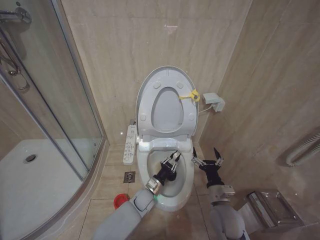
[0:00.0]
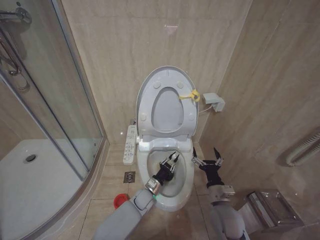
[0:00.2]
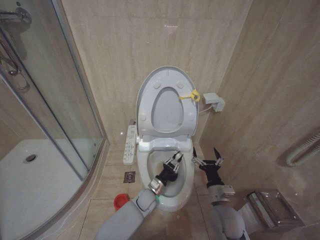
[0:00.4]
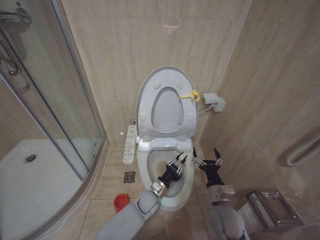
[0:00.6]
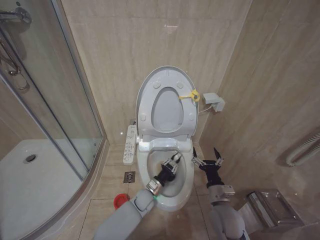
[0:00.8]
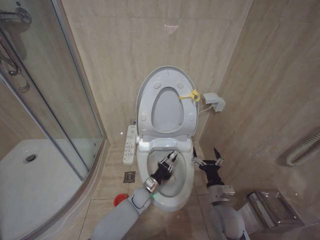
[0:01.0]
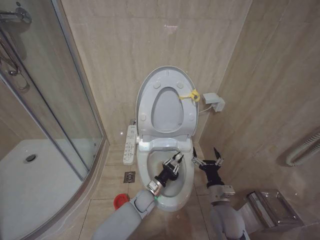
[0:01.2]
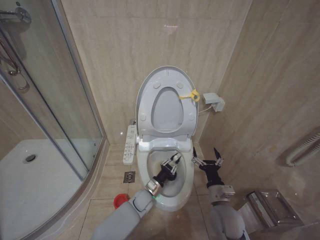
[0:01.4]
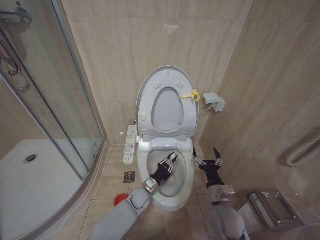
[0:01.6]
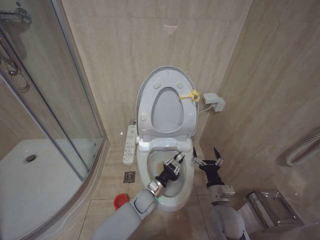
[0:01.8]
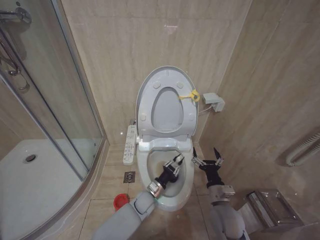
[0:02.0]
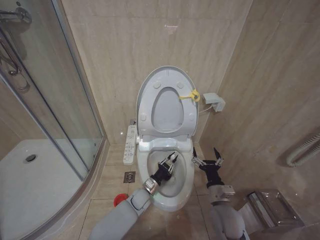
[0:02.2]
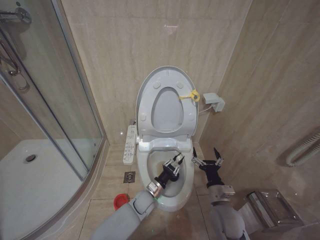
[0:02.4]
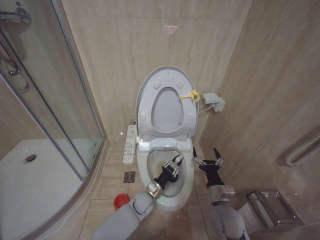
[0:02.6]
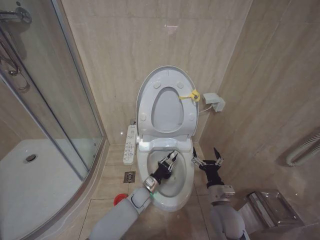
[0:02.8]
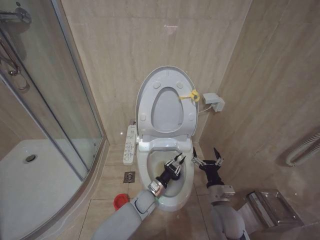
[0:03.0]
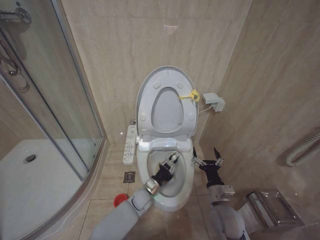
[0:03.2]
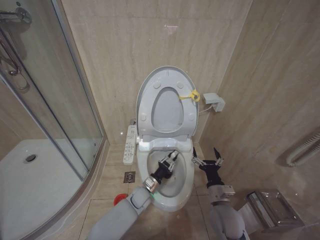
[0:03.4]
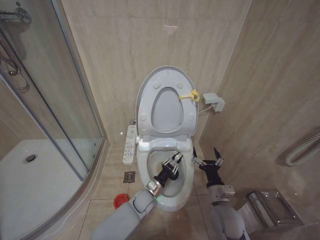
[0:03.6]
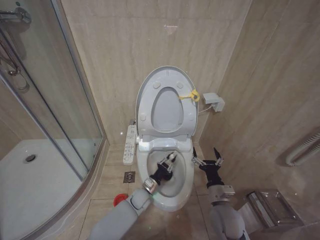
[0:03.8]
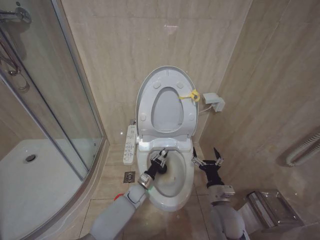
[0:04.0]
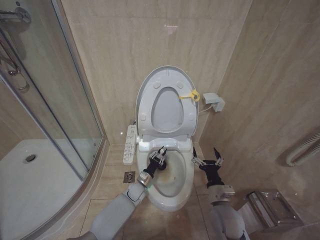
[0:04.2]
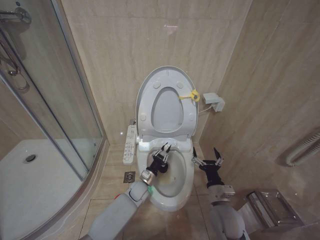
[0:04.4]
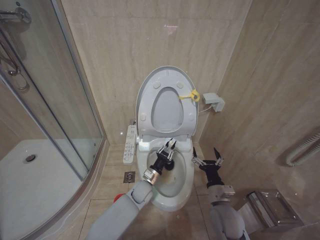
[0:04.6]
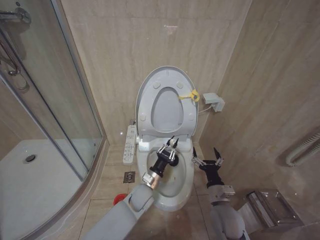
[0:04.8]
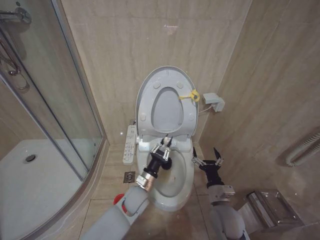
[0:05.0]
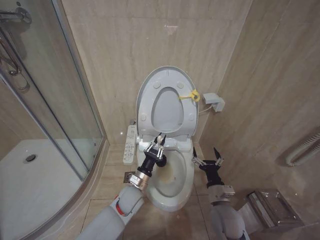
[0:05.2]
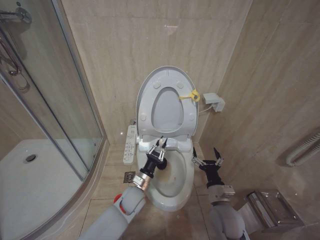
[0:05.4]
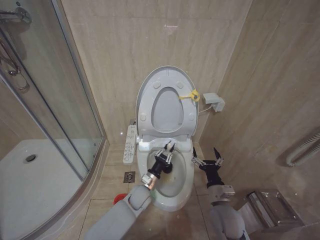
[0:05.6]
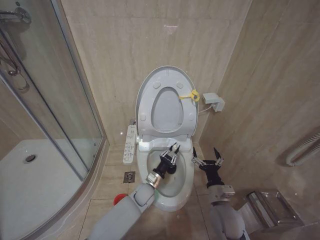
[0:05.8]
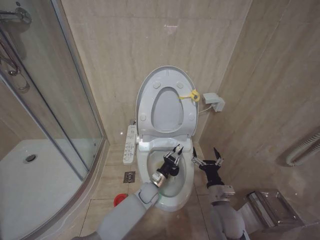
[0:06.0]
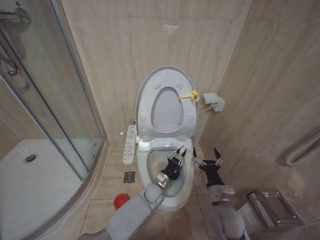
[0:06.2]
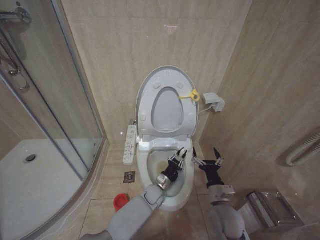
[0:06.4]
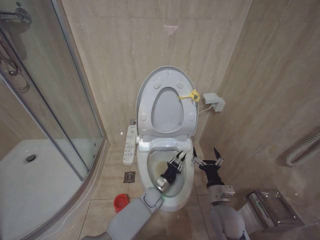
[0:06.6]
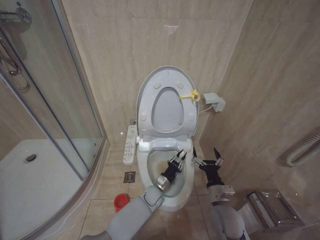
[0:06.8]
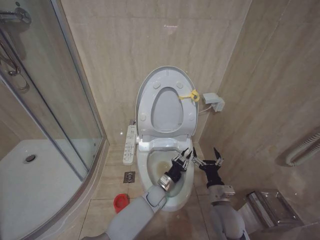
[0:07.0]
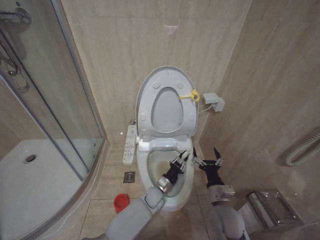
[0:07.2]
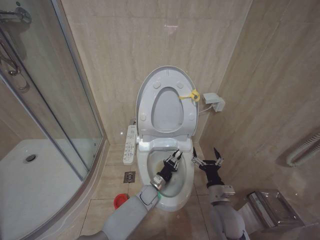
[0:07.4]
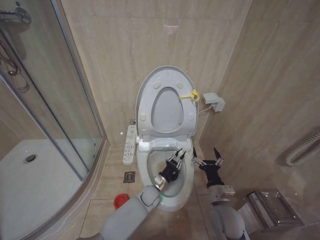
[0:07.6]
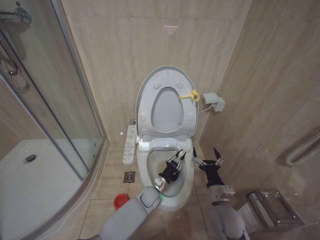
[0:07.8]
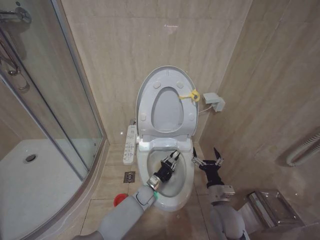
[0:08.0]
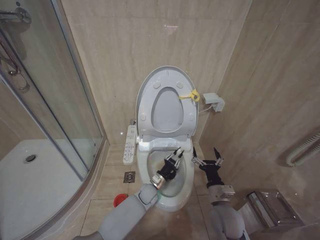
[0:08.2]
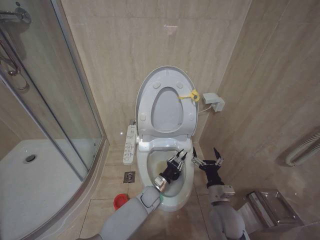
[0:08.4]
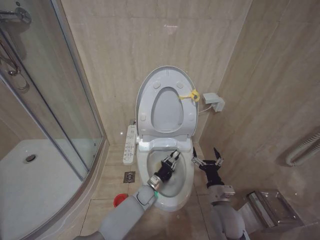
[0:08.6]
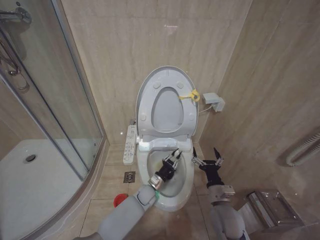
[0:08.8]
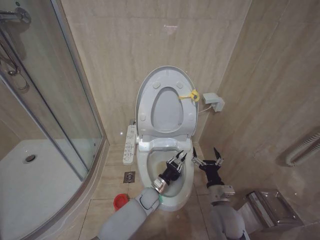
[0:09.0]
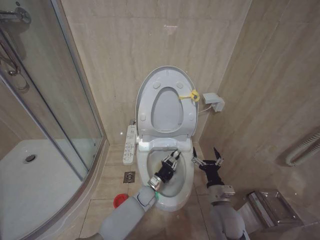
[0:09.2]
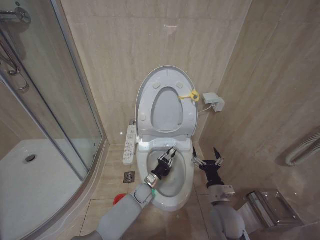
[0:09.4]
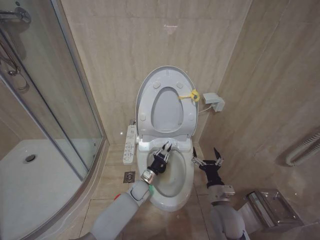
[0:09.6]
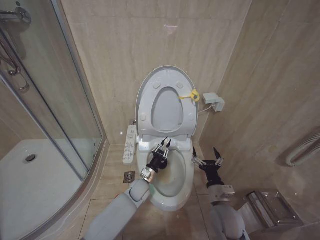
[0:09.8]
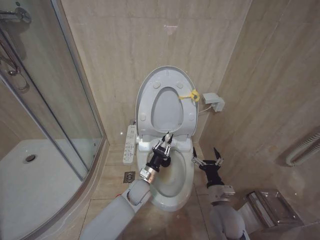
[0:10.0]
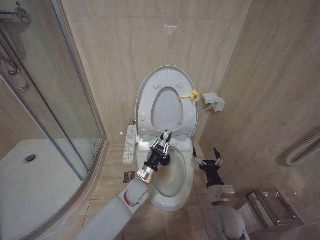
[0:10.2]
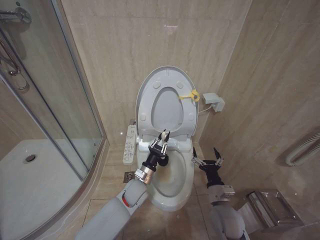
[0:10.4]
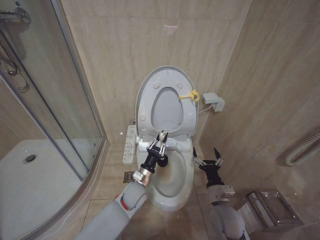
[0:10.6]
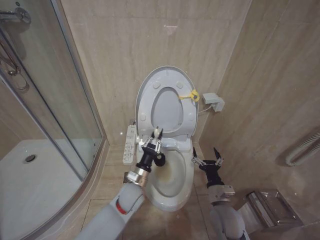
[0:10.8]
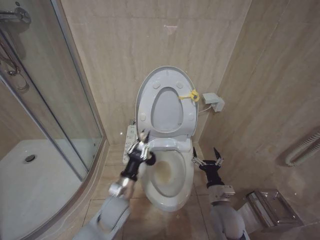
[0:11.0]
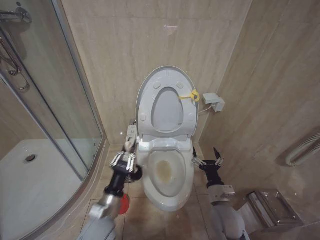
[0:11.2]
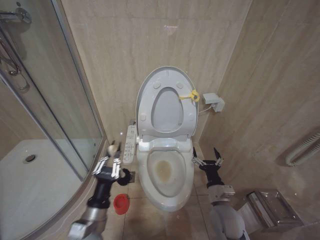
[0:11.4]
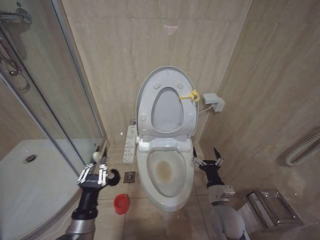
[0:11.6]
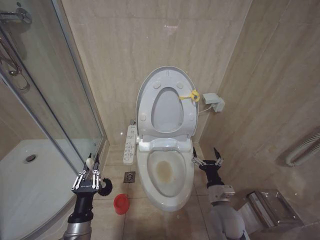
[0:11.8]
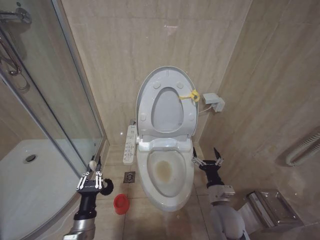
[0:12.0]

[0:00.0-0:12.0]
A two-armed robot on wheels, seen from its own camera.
Task of the whole recording: Open the toilet lid, clean the toilet bowl with a toilet brush, close the toilet lid, and flush.
0:00.0 to 0:03.0: The grippers move only a little.
0:04.4 to 0:06.0: The left gripper reaches about 10 cm upward, then returns.
0:06.0 to 0:07.6: The grippers move only a little.
0:09.0 to 0:10.4: The left gripper shifts about 10 cm upward and to the left.
0:10.4 to 0:12.0: The left gripper travels backward and to the left by some 25 cm.

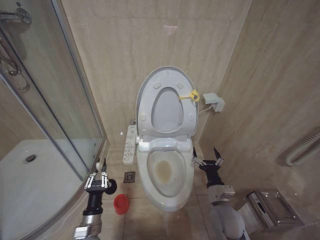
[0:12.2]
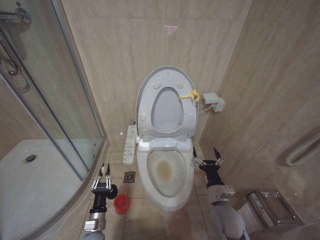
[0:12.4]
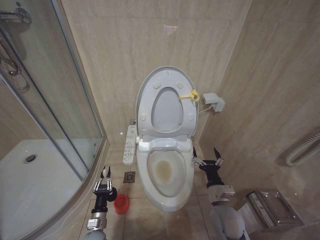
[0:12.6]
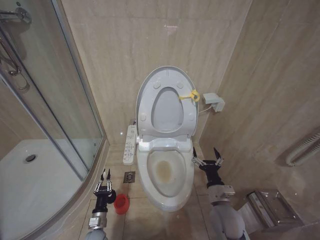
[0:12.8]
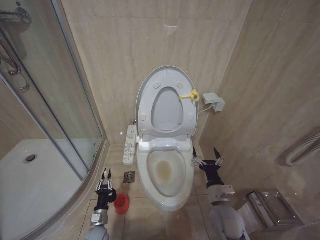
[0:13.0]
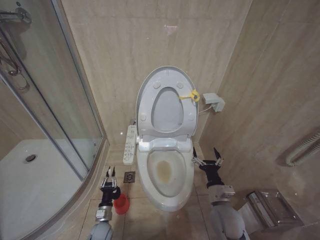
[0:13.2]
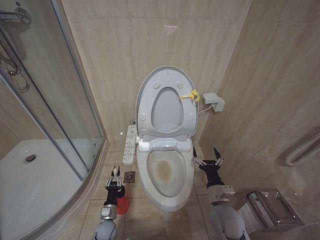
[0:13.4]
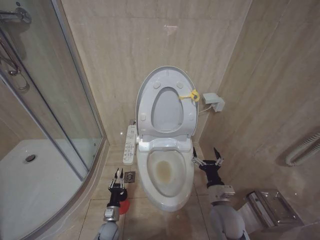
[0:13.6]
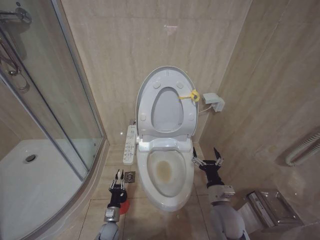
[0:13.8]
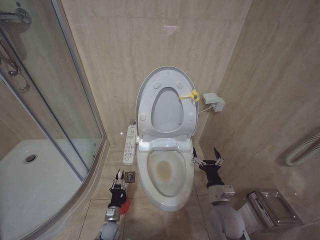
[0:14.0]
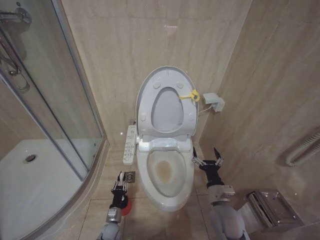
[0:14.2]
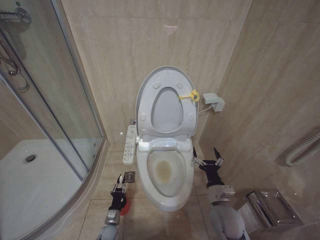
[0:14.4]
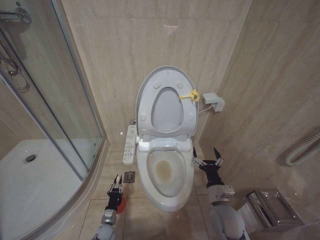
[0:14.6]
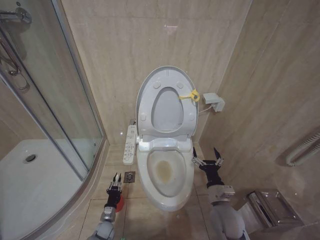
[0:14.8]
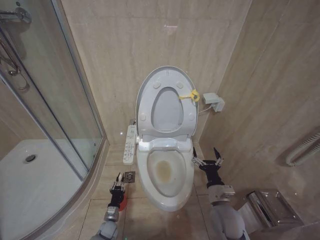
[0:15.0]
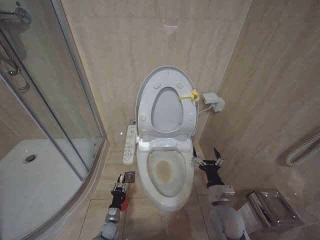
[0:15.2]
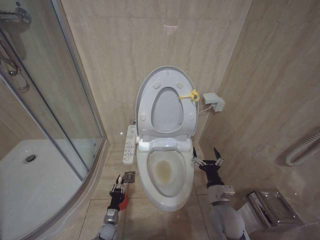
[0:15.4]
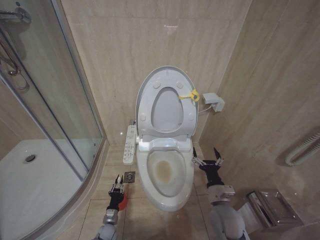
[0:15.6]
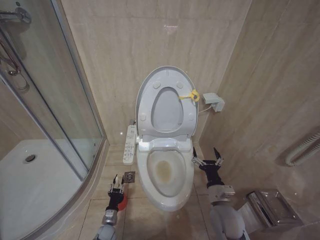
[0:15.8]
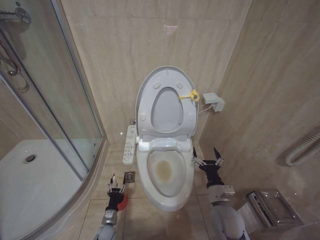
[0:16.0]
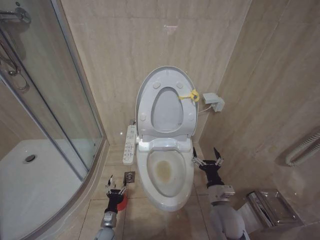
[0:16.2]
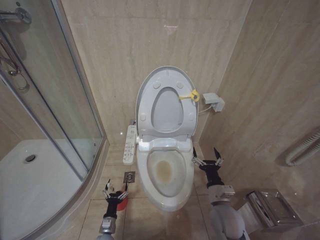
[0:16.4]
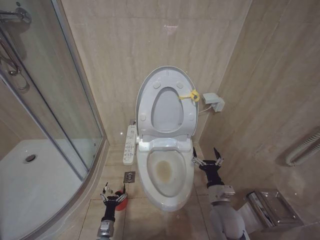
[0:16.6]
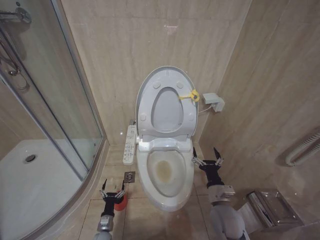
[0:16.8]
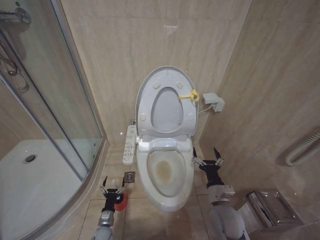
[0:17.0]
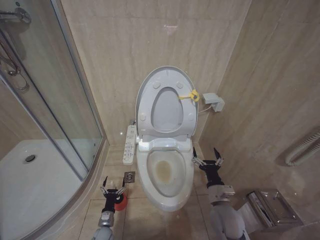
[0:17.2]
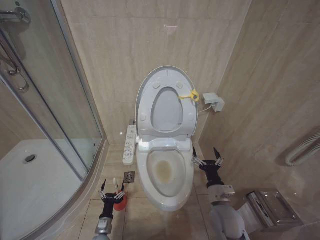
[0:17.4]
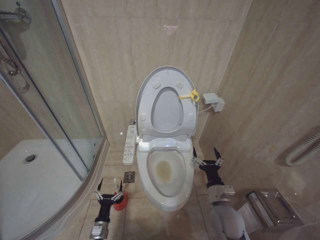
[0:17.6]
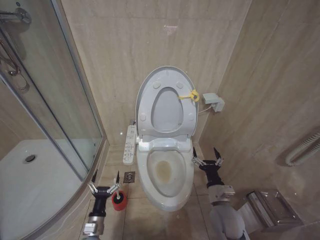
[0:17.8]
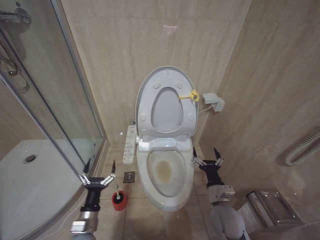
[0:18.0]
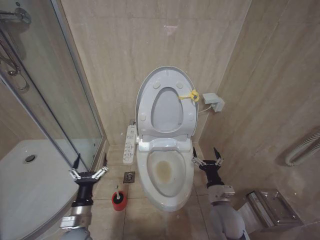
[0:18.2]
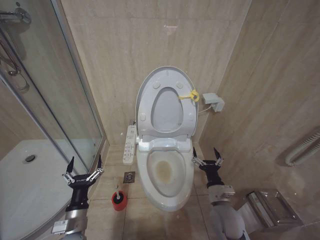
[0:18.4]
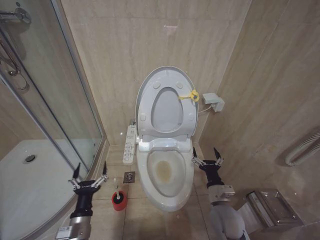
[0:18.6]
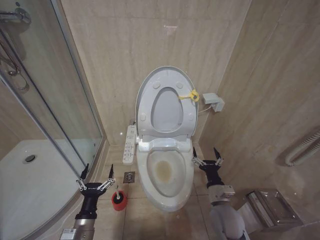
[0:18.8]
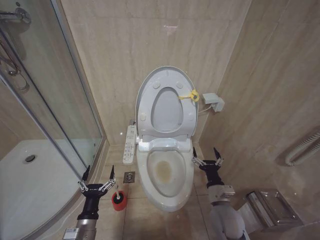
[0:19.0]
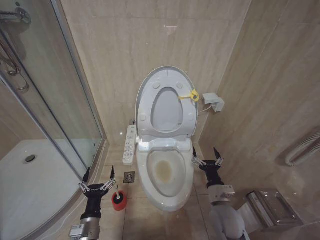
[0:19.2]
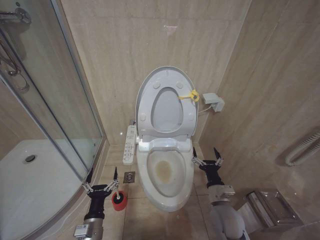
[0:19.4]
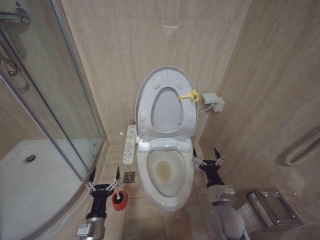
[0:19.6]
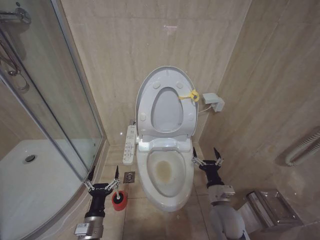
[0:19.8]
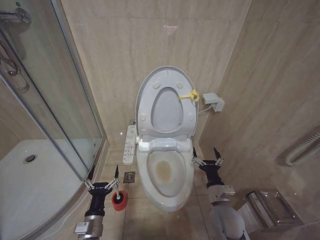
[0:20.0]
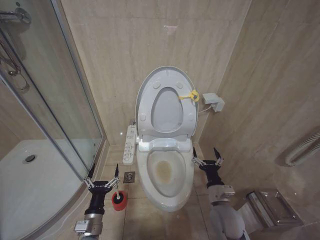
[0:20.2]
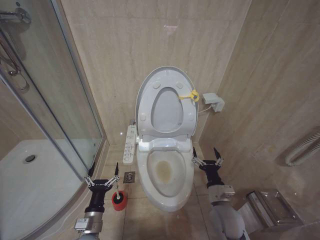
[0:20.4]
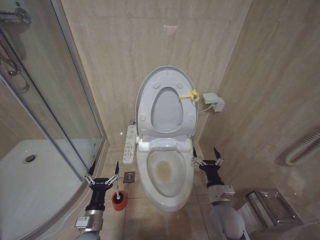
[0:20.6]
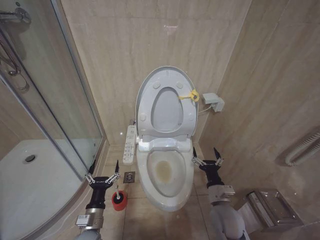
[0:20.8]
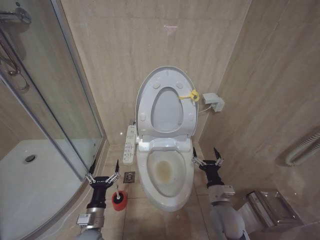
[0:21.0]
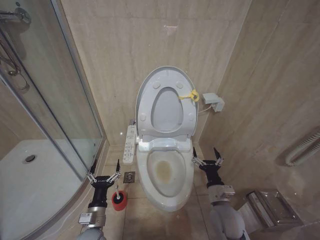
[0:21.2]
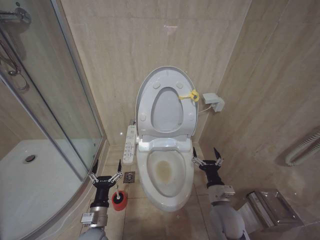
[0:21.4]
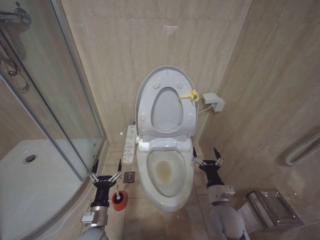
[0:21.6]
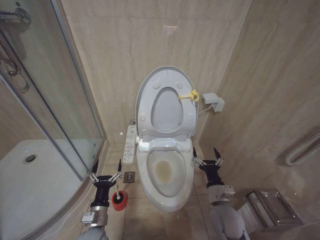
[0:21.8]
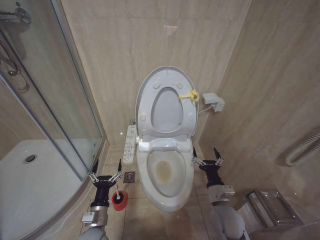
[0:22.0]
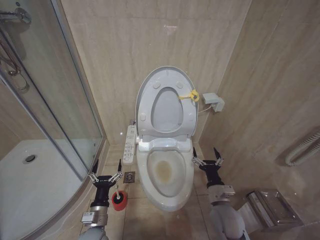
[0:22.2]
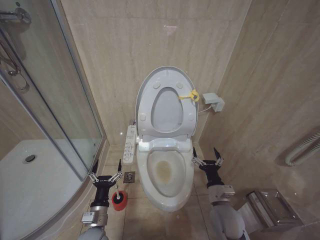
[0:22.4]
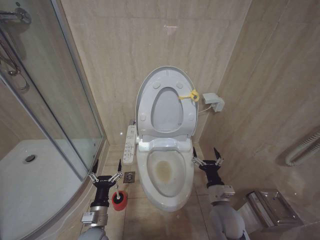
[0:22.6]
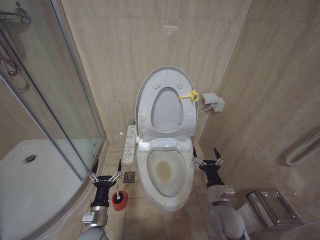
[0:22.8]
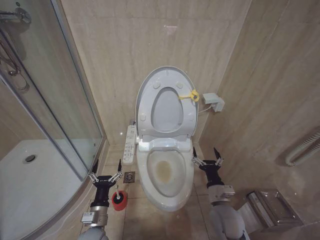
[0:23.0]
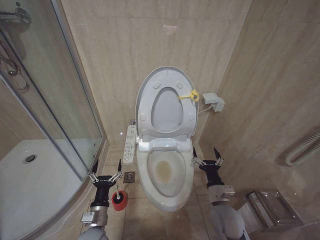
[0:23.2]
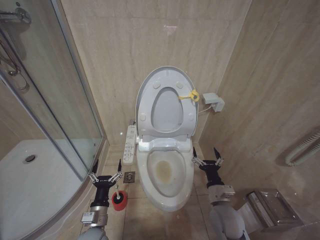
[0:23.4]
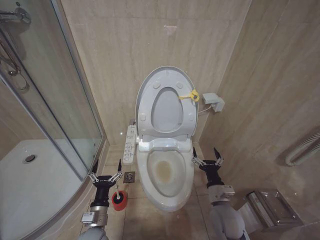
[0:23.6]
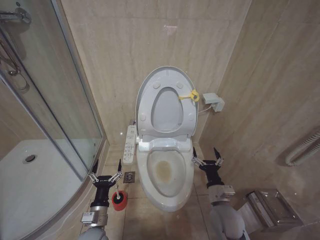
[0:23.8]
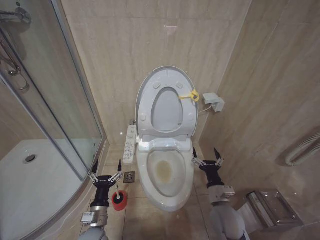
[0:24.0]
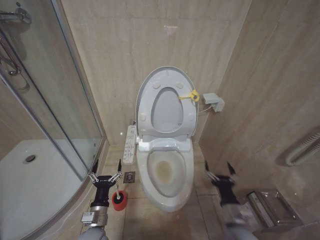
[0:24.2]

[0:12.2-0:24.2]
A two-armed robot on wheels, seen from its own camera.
Task of the whole recording: Open the toilet lid, clean the toilet bowl with a toilet brush, close the toilet lid, and flush.
0:12.2 to 0:13.8: The left gripper is displaced downward and forward by some 20 cm.
0:15.2 to 0:16.6: The left gripper moves backward, roughly 5 cm, and opens its fingers.
0:16.6 to 0:18.2: The left gripper goes roughly 25 cm upward.
0:18.2 to 0:21.2: There are only small adjustments of the grippers.
0:21.2 to 0:22.6: Both grippers stay about where they are.
0:22.6 to 0:24.2: The grippers make only small movements.
